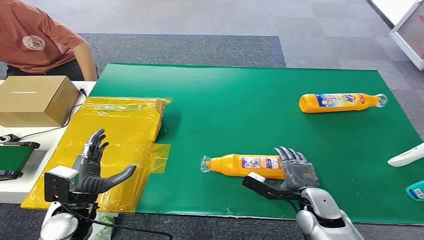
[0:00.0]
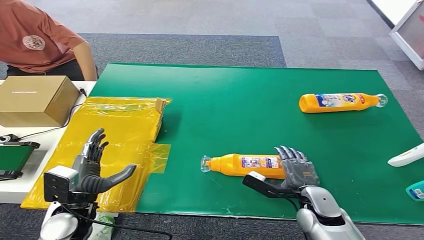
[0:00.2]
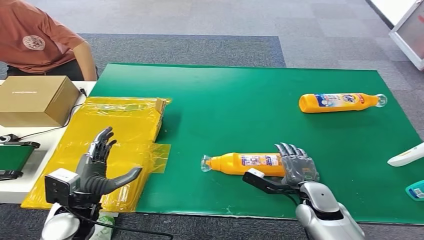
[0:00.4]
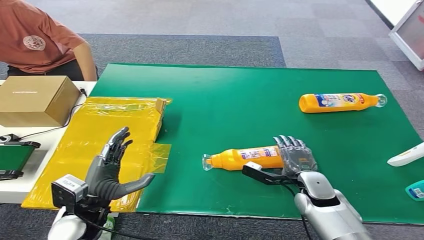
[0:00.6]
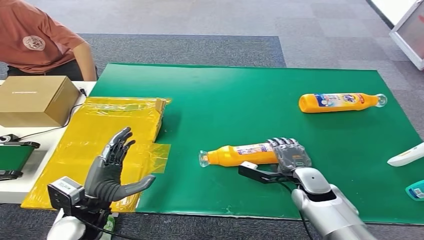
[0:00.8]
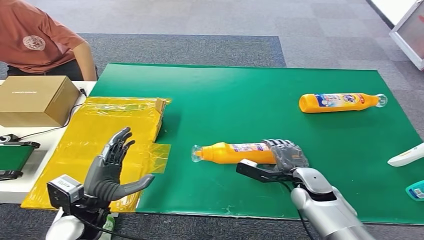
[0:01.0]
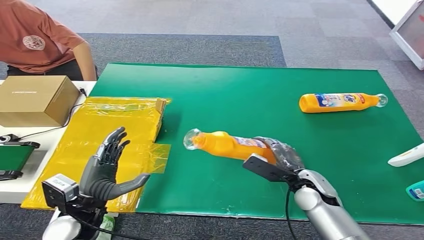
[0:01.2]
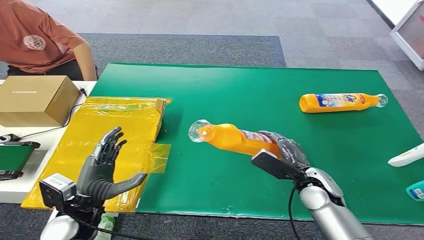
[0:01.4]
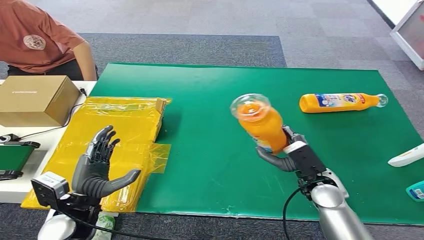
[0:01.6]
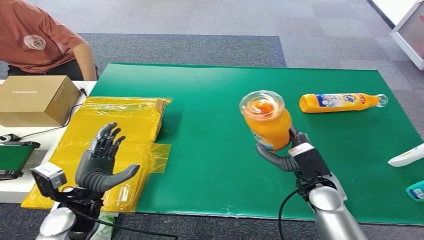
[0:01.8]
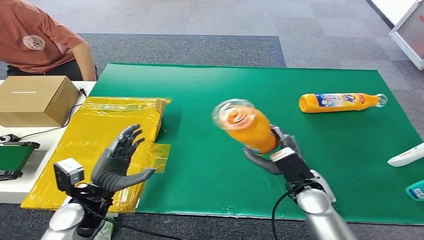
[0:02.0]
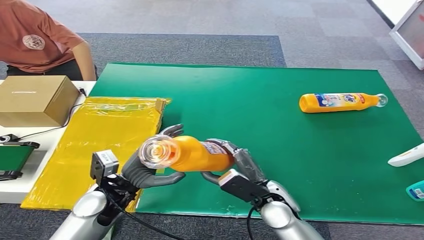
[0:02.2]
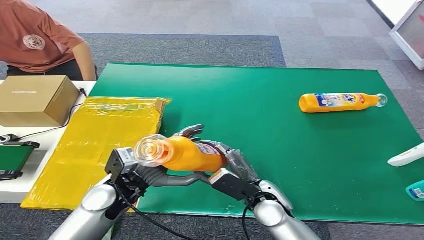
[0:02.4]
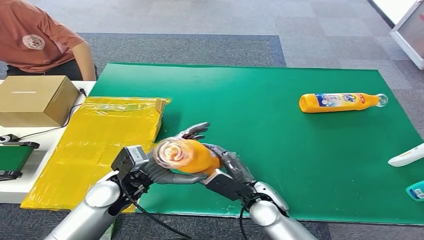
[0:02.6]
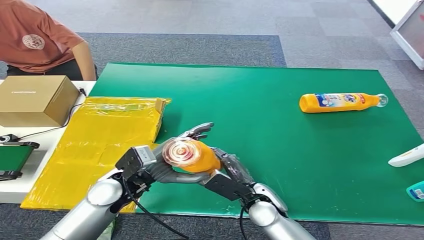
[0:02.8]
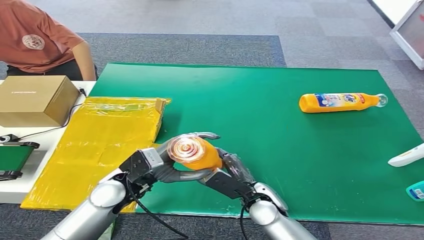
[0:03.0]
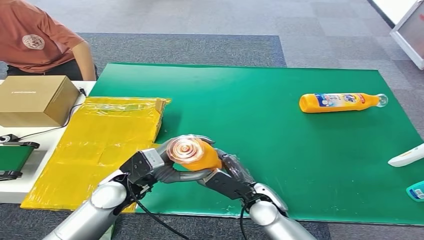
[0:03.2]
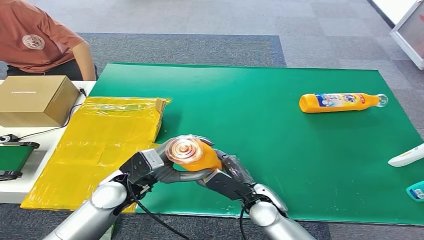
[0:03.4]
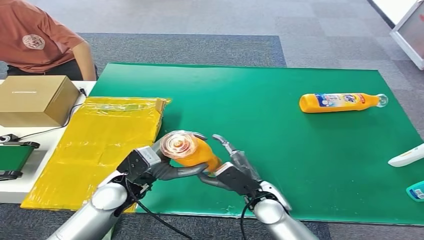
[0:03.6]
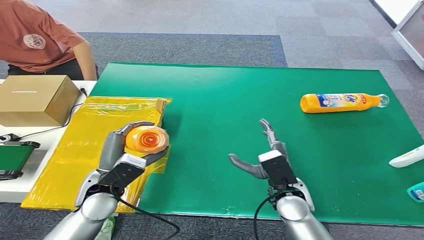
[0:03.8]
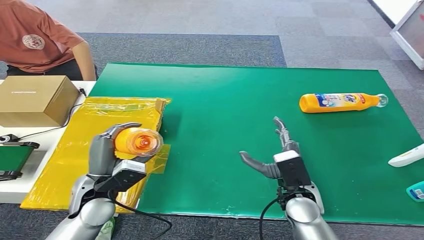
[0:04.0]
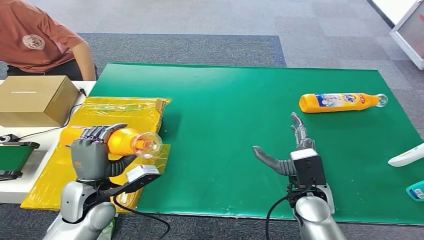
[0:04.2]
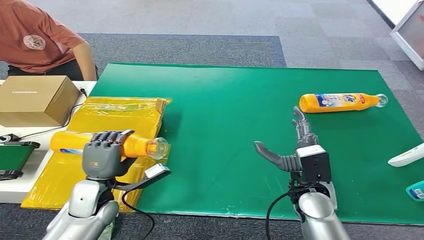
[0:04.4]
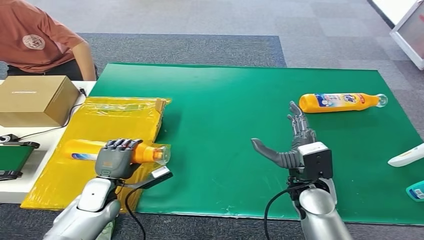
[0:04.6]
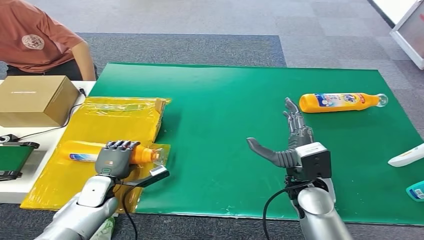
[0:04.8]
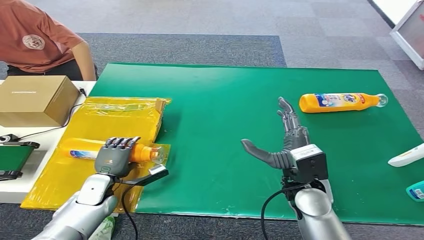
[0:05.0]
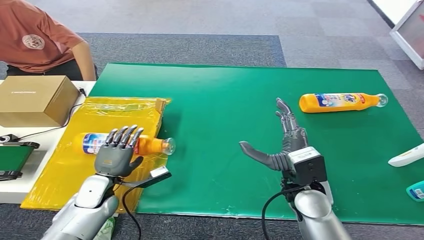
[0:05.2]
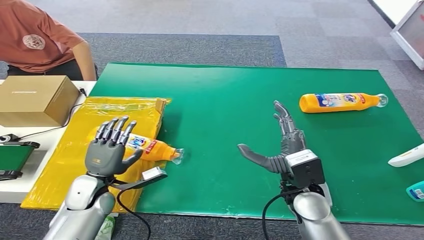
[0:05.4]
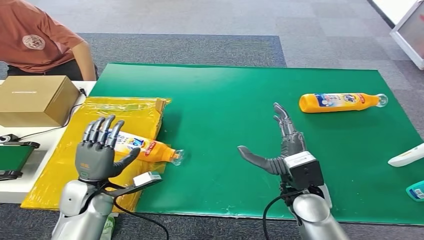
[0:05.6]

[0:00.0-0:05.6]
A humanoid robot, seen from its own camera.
Step, 0:00.0 to 0:01.6: Pick up the bottle from the table.
Step, 0:01.8 to 0:05.6: Turn the bottle to the front side.
0:01.4 to 0:02.8: The left hand travels to the right and forward by about 10 cm. The right hand travels to the left by some 10 cm.
0:02.8 to 0:04.2: The left hand heads to the left, covering about 5 cm, while the right hand heads to the right and upward, covering about 10 cm.
0:04.2 to 0:05.6: The left hand goes downward and returns, about 10 cm each way.

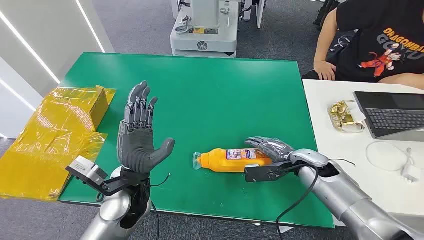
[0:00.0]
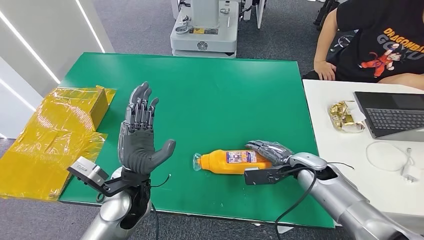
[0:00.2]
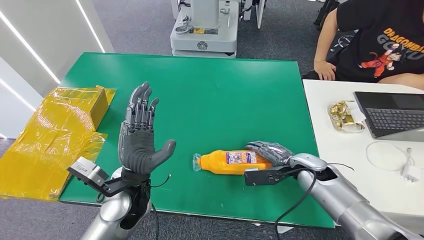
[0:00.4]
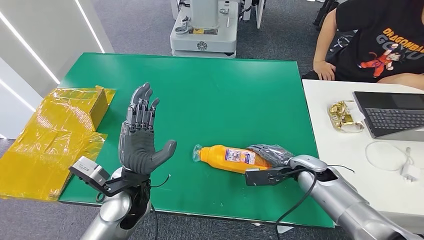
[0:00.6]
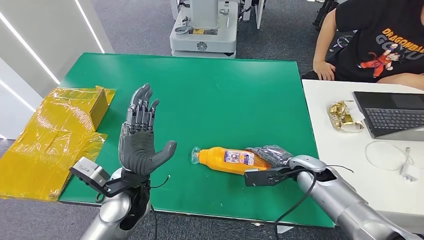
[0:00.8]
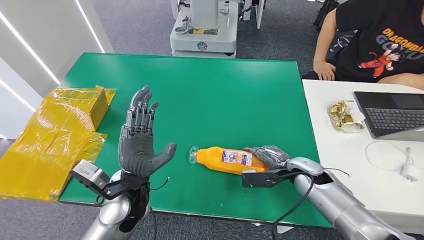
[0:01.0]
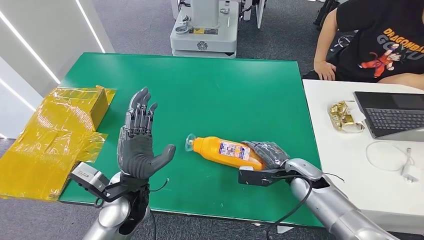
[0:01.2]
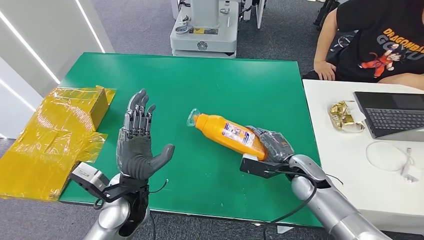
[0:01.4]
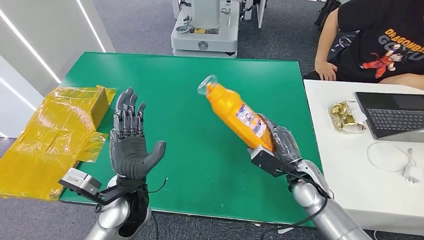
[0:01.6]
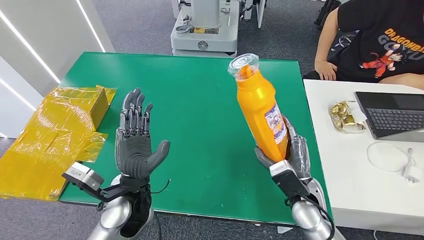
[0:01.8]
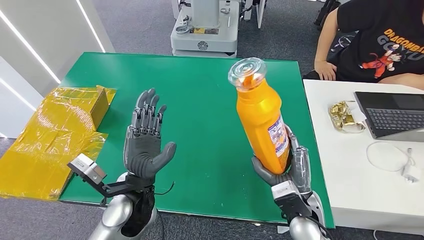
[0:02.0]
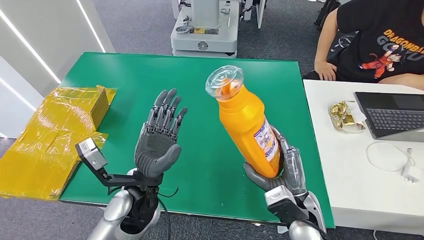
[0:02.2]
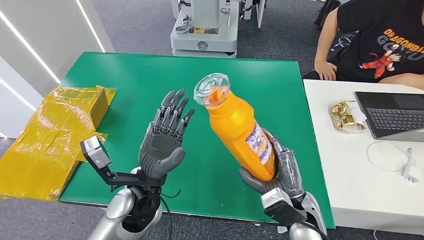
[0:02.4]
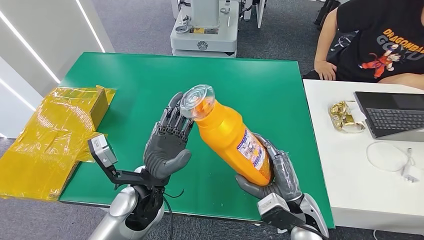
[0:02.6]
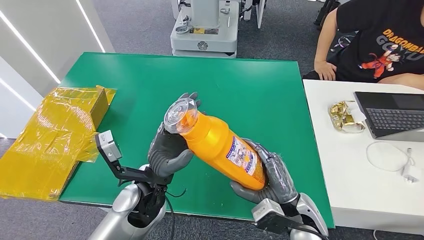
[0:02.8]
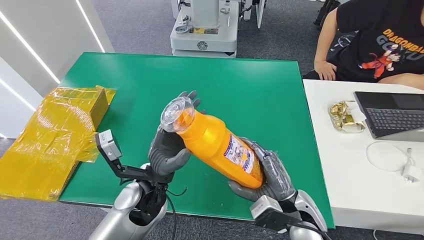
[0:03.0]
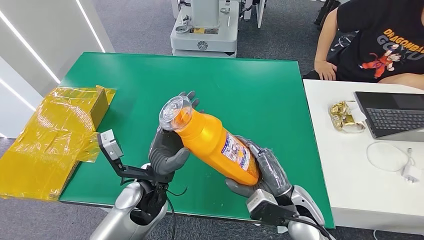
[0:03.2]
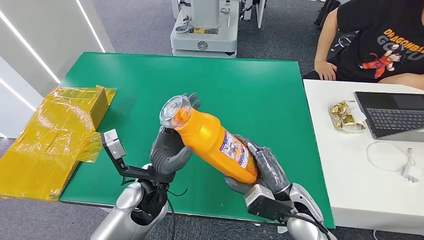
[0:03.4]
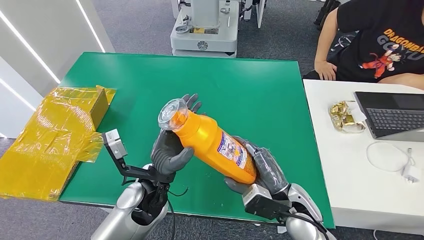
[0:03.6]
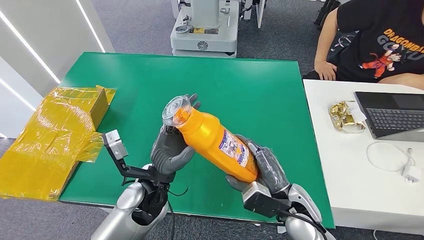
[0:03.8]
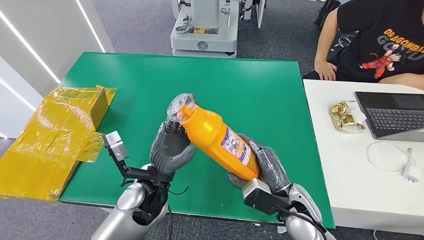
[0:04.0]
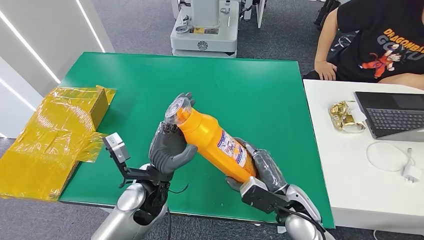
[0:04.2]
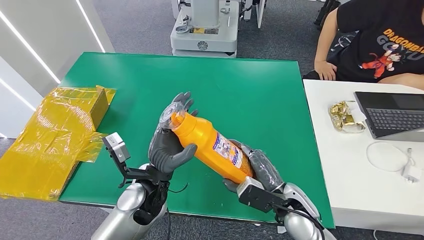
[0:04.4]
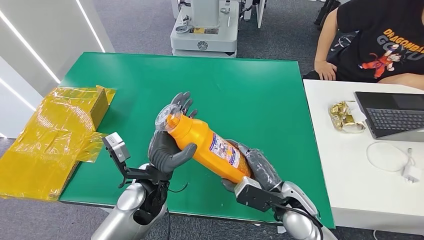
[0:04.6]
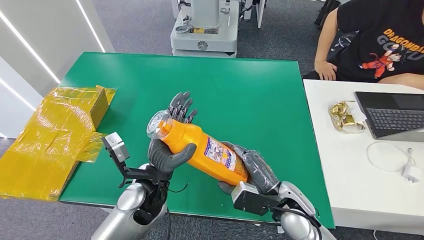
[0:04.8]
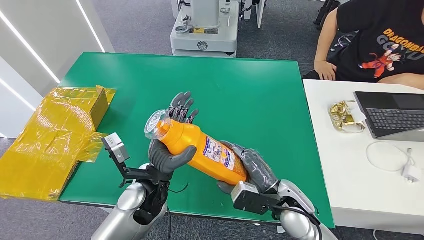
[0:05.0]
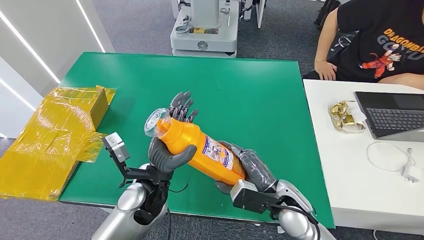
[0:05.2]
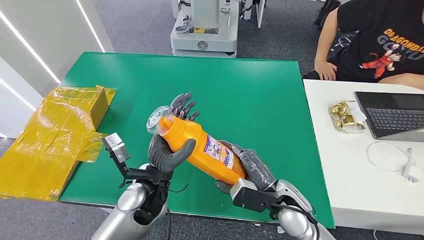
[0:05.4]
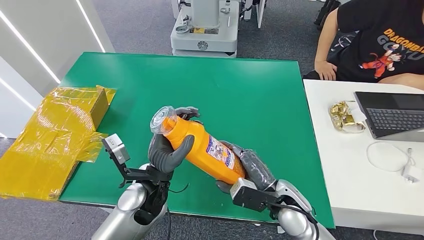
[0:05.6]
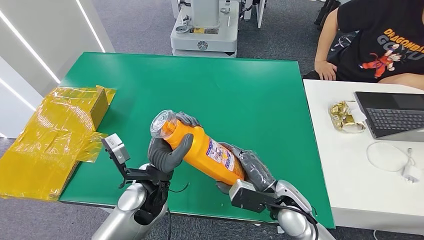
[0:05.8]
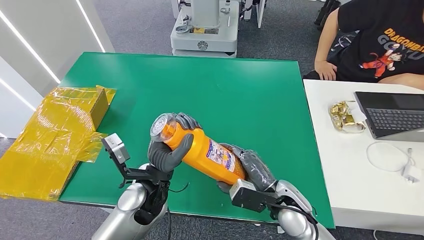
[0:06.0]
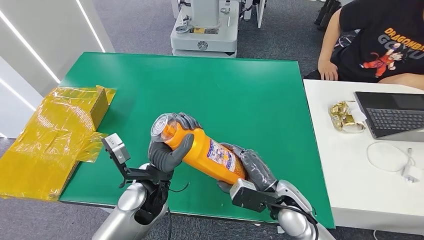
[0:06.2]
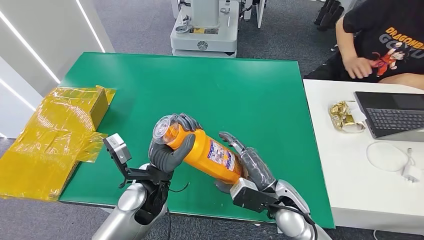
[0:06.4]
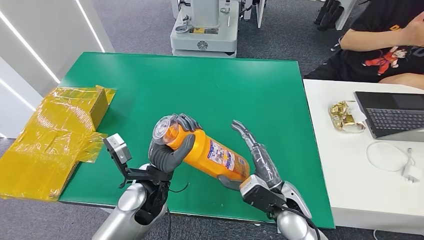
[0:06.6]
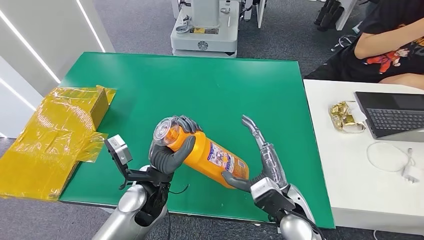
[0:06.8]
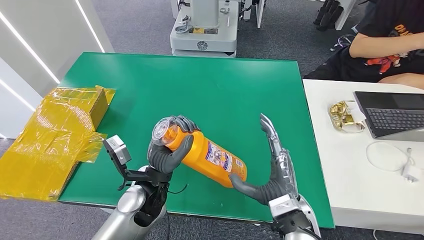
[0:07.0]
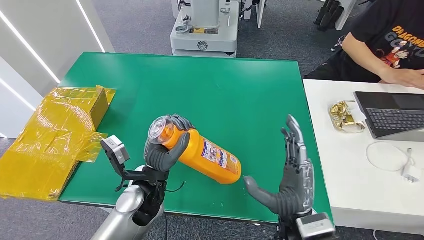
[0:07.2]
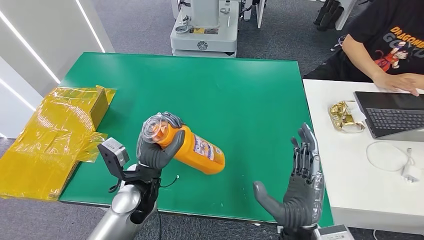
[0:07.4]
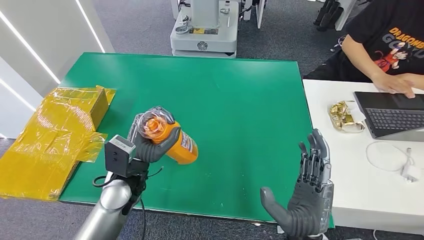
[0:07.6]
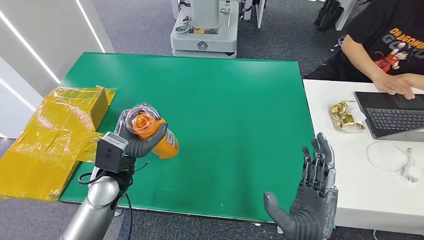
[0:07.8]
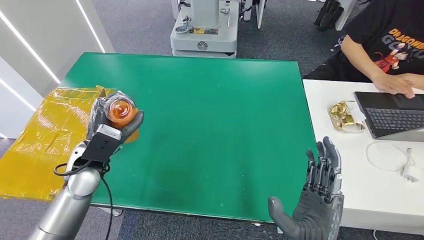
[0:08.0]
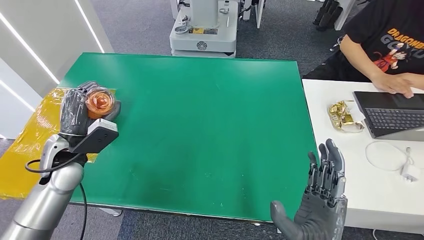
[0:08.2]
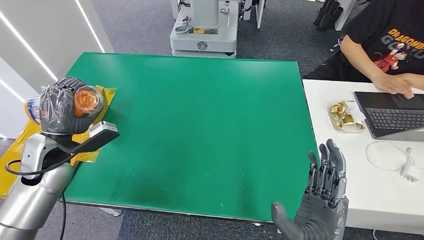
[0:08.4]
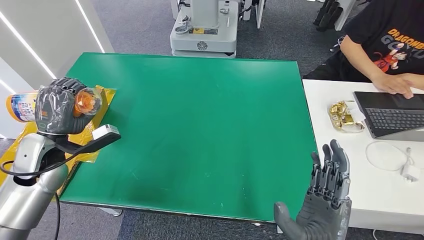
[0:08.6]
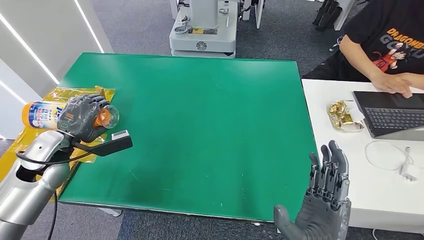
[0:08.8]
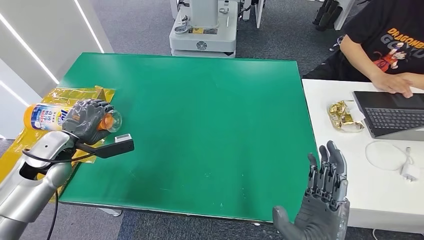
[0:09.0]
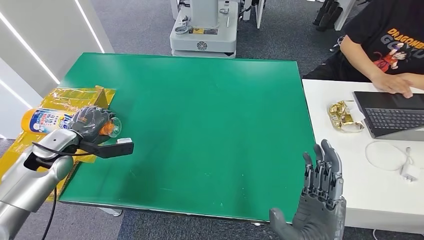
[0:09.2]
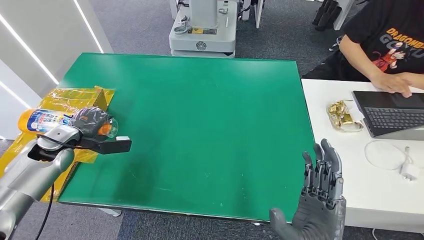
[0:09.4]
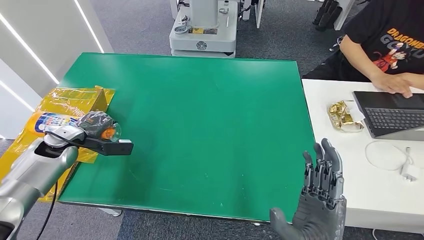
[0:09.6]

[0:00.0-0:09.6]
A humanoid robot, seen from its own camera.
Step, 0:00.0 to 0:02.2: Pick up the bottle from the table.
0:03.2 to 0:04.8: The hands make only small movements.
0:04.8 to 0:06.4: Both hands stay put.
0:08.0 to 0:09.6: The left hand travels to the left and forward by some 15 cm.

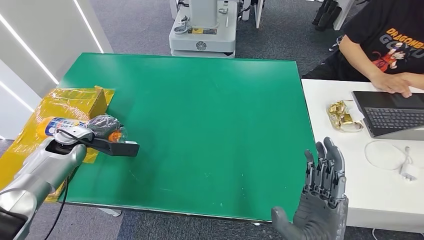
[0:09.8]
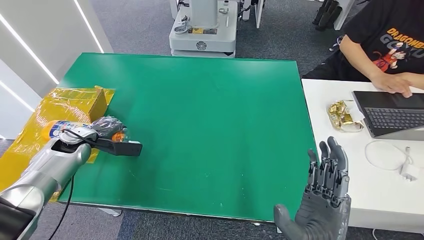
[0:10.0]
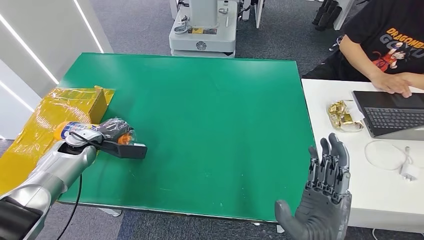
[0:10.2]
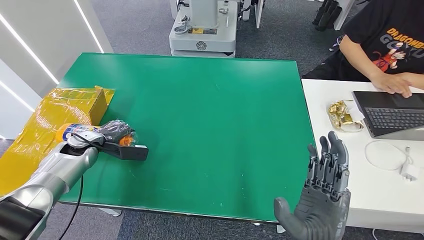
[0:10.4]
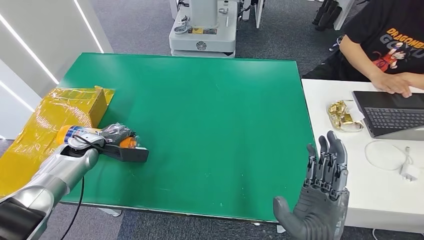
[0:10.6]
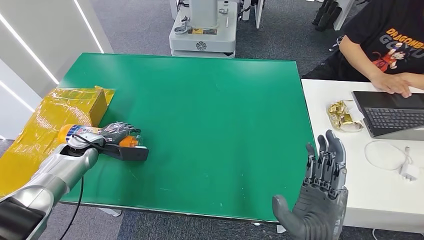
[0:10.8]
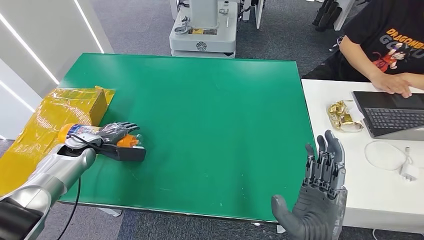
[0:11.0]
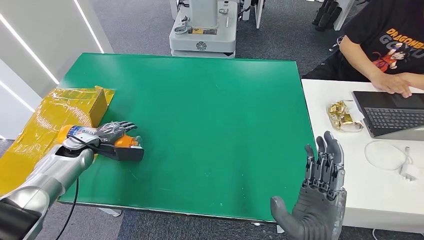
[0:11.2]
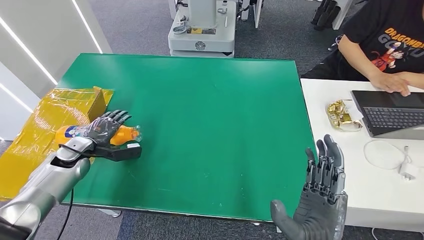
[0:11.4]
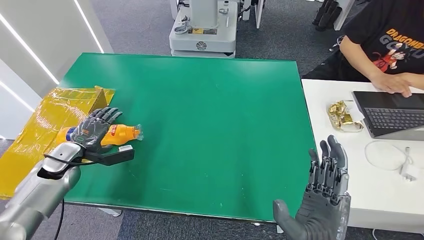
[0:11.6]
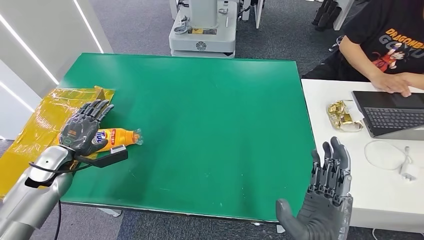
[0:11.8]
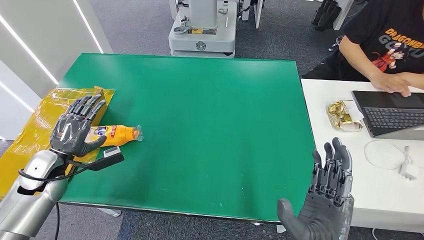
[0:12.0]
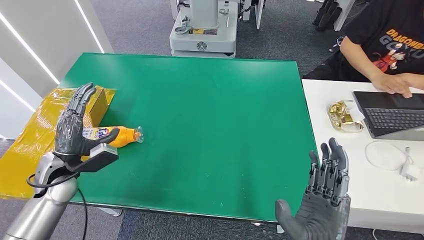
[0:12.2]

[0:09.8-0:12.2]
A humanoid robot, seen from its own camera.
Step, 0:09.8 to 0:12.2: Turn the bottle to the front side.
0:09.8 to 0:11.0: There are only small adjustments of the hands.
0:11.0 to 0:12.2: The left hand is displaced backward by approximately 10 cm.
